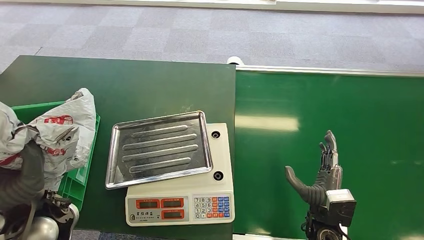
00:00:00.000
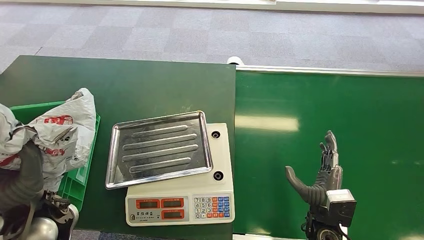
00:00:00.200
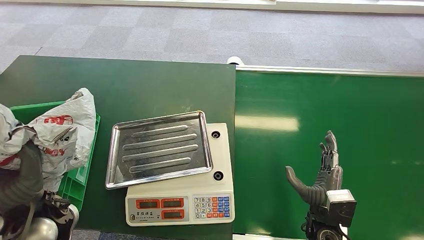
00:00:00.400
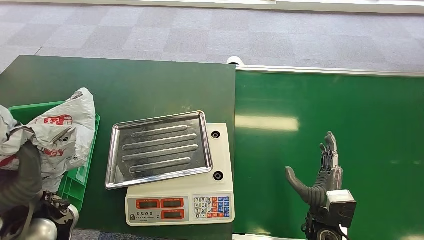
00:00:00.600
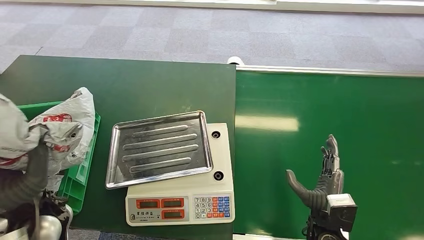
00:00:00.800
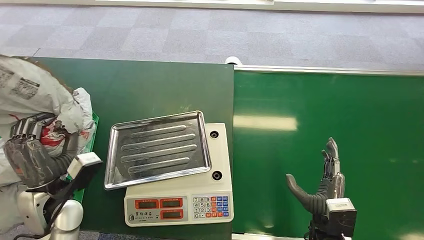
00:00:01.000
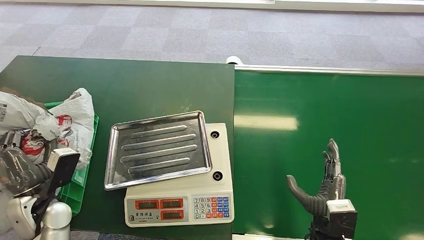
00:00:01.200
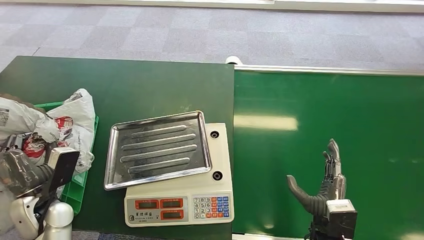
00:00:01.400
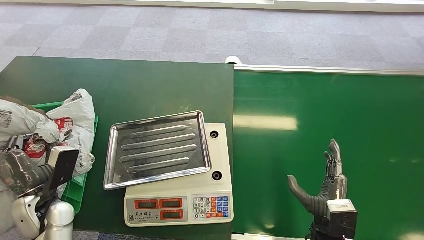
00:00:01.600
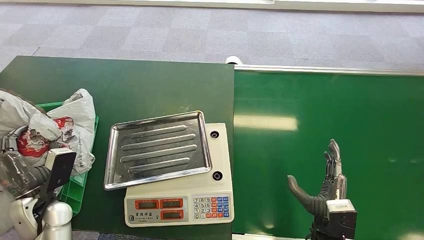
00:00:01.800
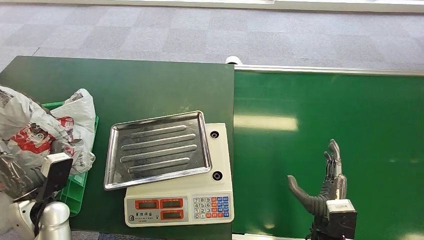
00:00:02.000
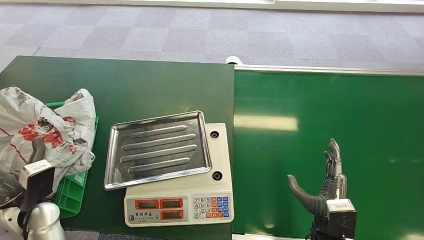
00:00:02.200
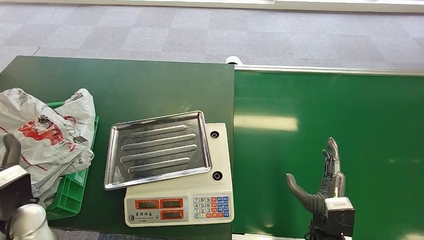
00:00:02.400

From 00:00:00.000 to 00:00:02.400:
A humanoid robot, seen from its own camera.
Task of the whole recording: Weigh the package on the weighing device and place it in the left basket.
Step, from 00:00:00.000 to 00:00:02.400: Place the package into the parcel locker.
From 00:00:00.000 to 00:00:01.200: The left hand moves downward and to the left, about 10 cm.
